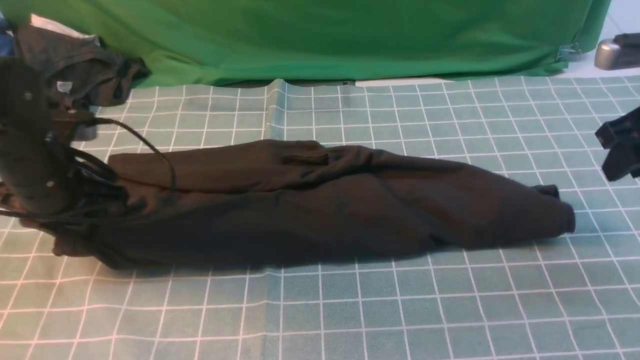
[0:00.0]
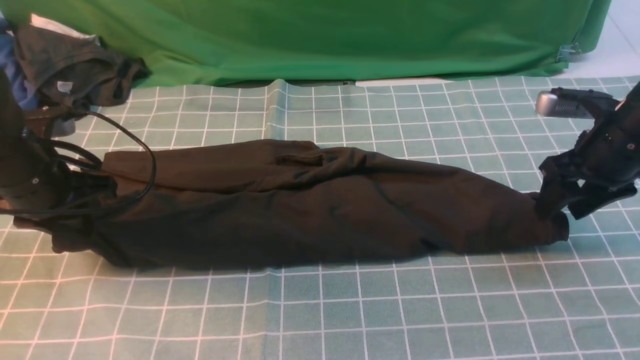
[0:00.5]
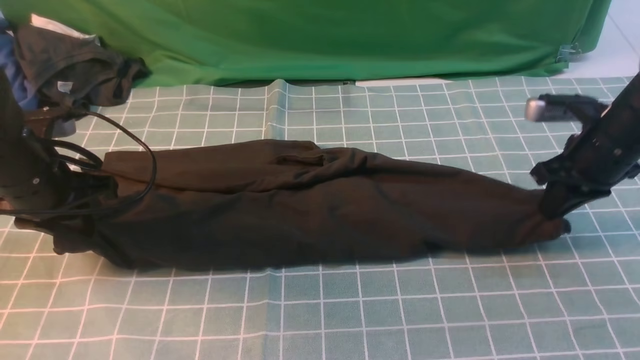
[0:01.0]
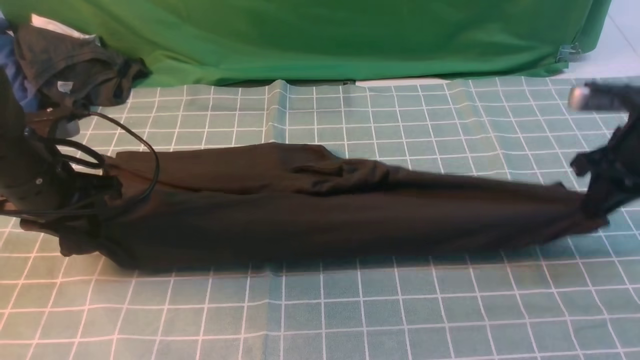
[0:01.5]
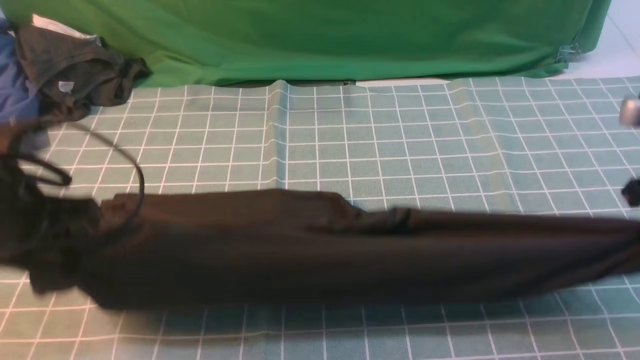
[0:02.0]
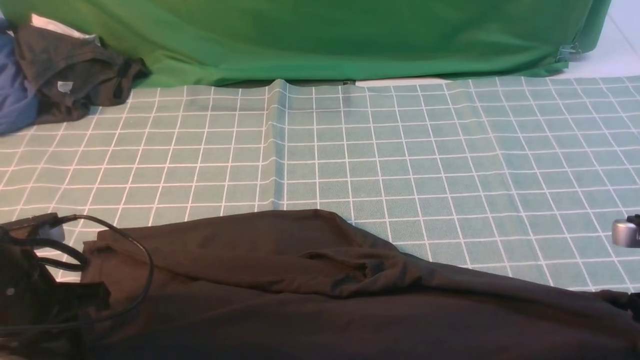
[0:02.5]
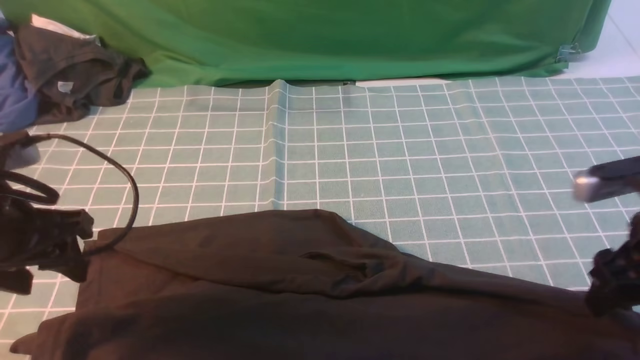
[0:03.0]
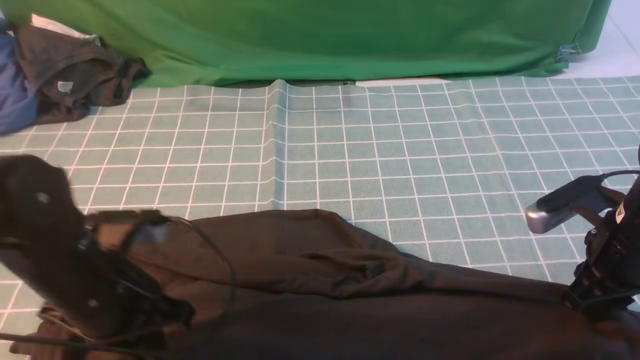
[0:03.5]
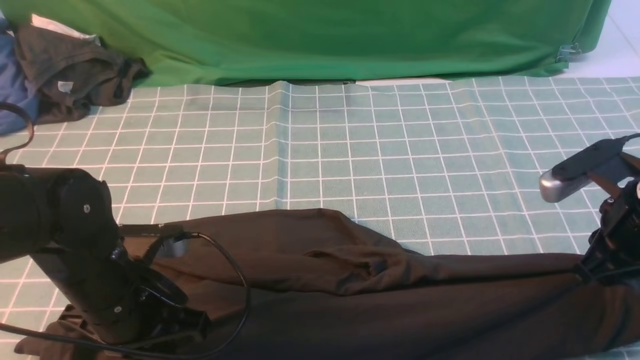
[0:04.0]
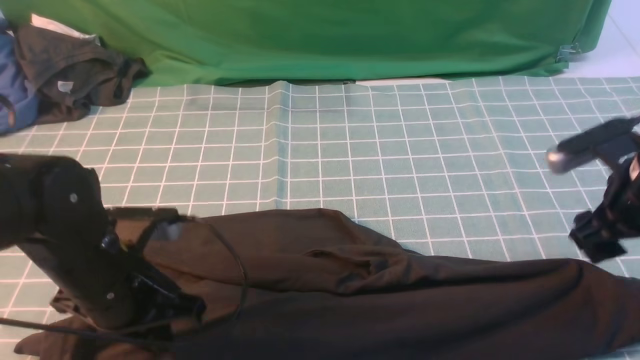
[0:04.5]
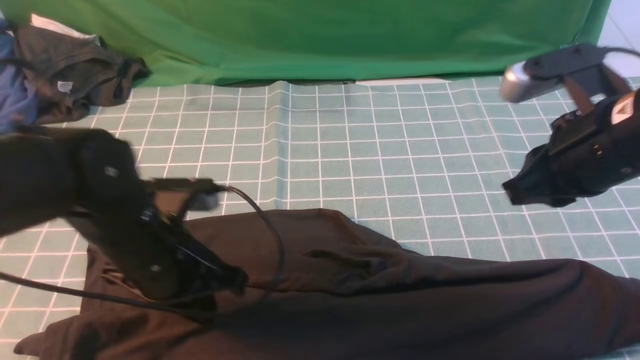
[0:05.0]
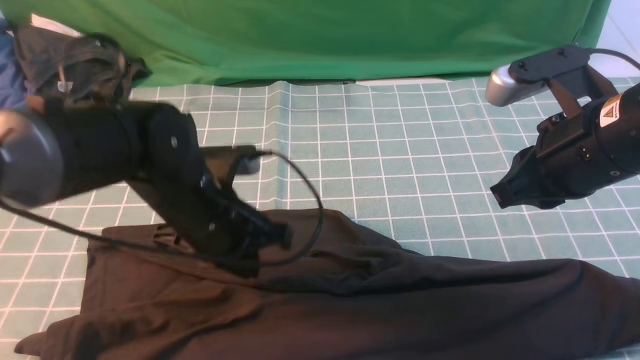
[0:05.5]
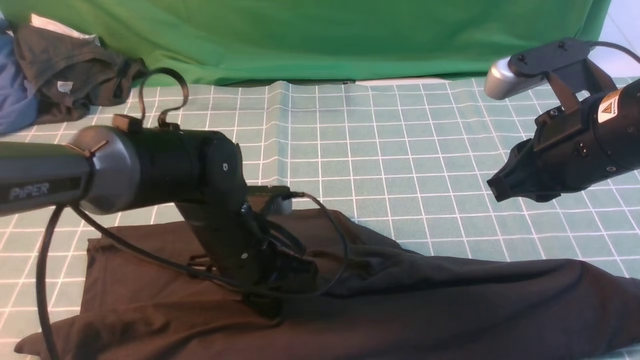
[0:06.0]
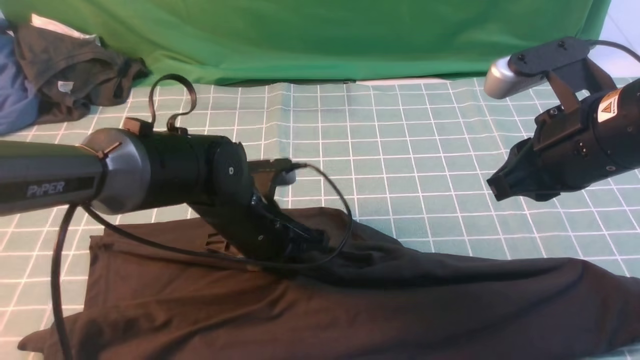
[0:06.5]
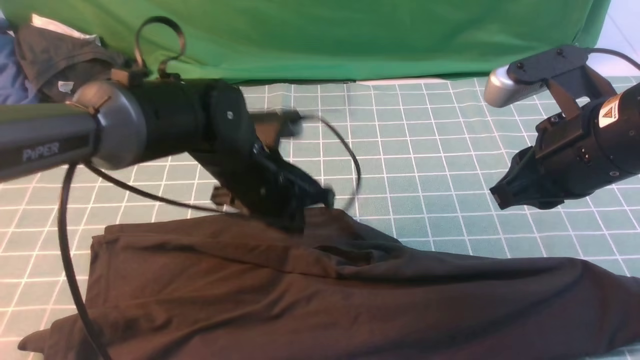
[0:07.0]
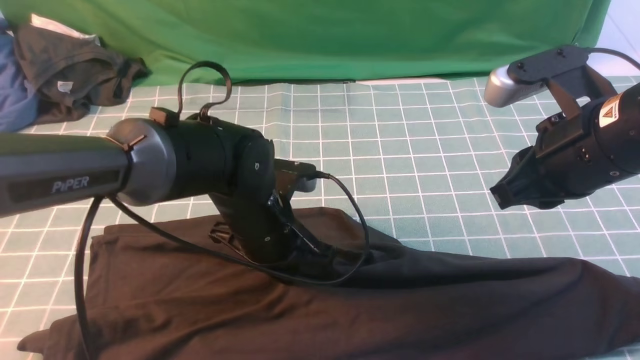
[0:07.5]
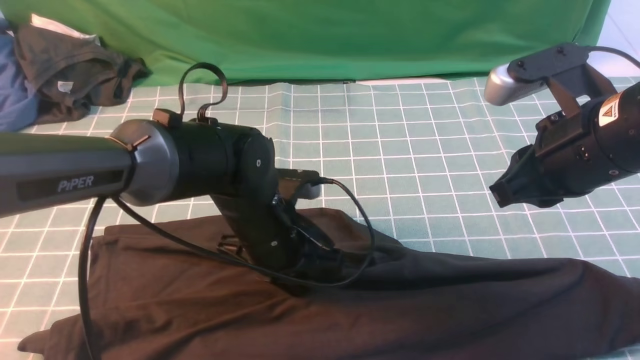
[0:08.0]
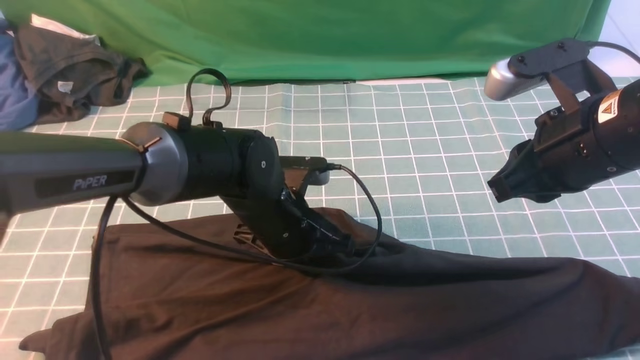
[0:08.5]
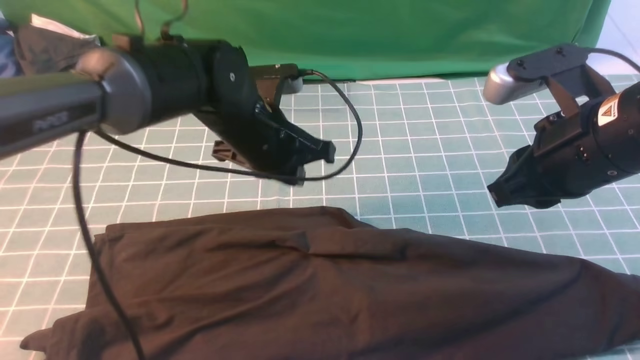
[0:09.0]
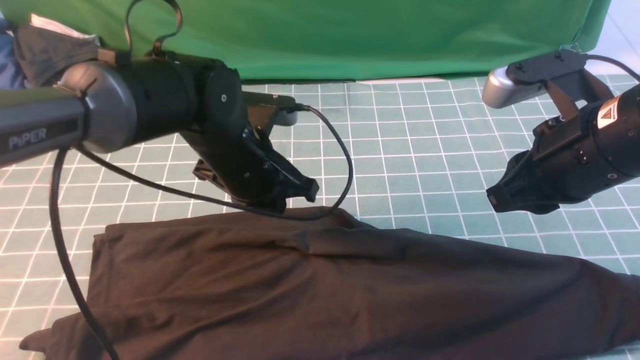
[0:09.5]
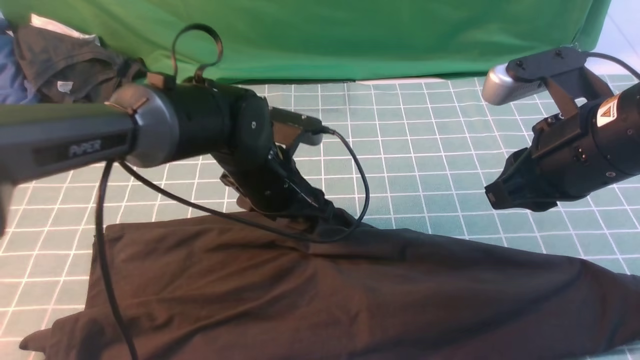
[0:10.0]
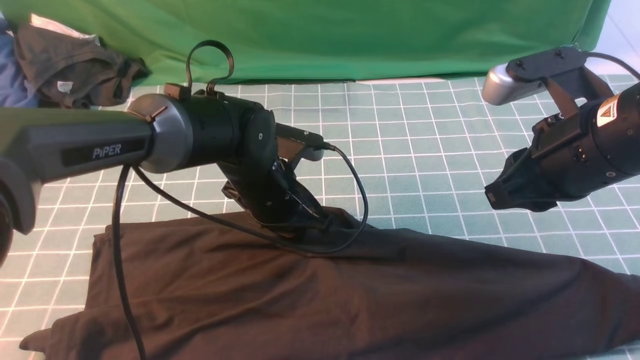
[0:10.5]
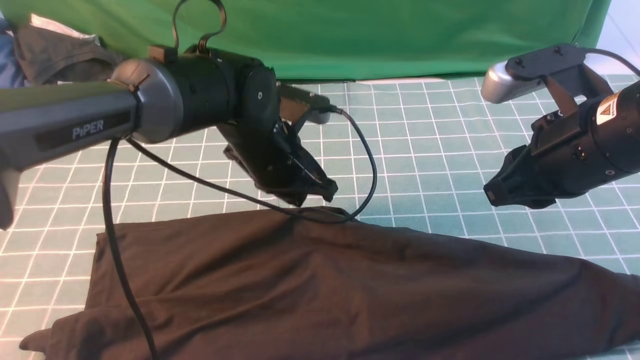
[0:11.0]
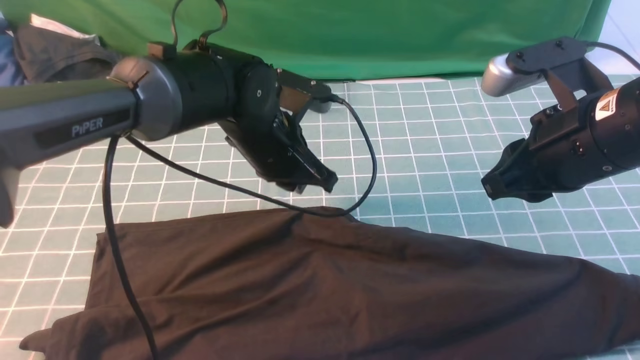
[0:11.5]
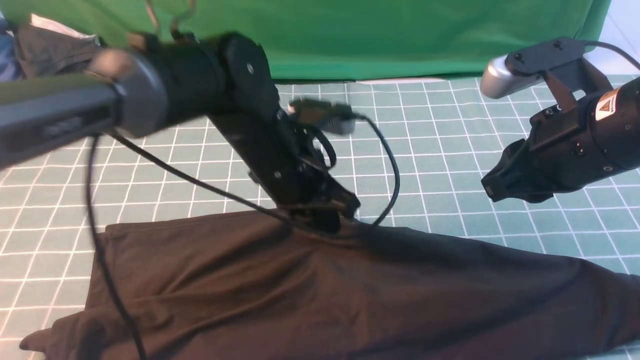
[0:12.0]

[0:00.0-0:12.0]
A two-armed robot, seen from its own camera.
0:00.0 to 0:02.0: Both grippers travel together backward, some 5 cm. The right gripper closes up.
0:02.0 to 0:04.0: The left gripper moves to the right and downward, about 10 cm, and opens, then closes again, while the right gripper is displaced to the left by approximately 5 cm, and opens, then closes again.
0:04.0 to 0:06.0: The right gripper moves upward and to the left, roughly 10 cm, and opens, then closes once more. Meanwhile the left gripper is displaced to the right and forward by roughly 10 cm.
0:08.0 to 0:10.0: The left gripper moves forward, about 5 cm, and opens up.
0:10.0 to 0:12.0: The left gripper closes its fingers.

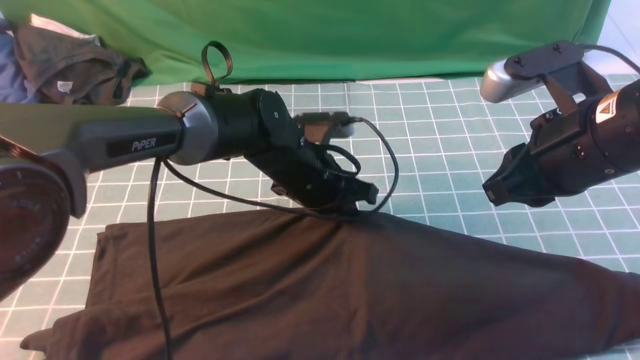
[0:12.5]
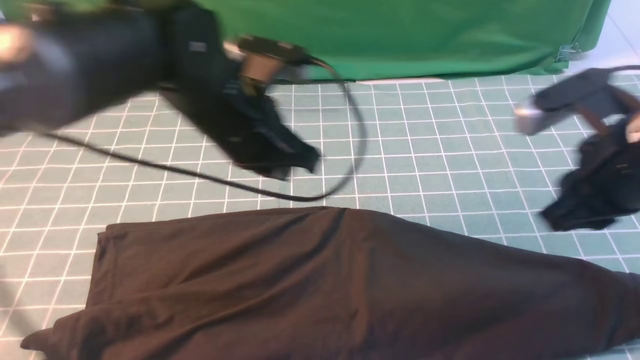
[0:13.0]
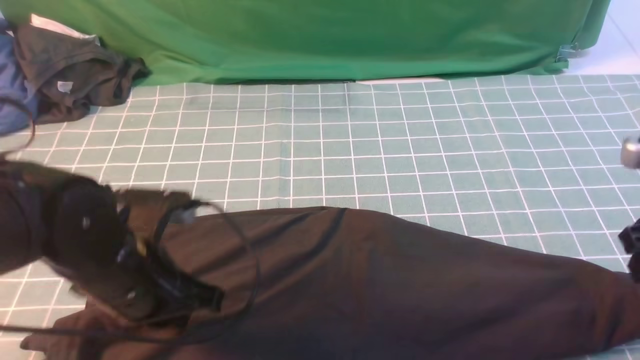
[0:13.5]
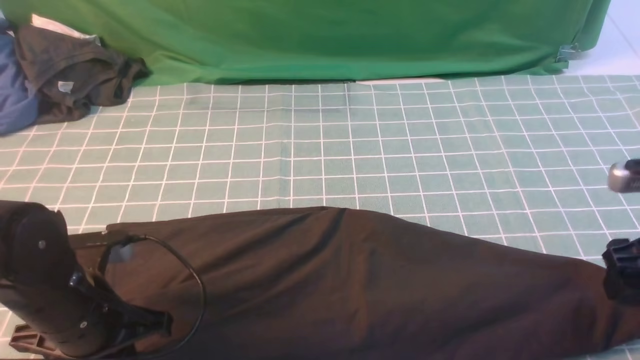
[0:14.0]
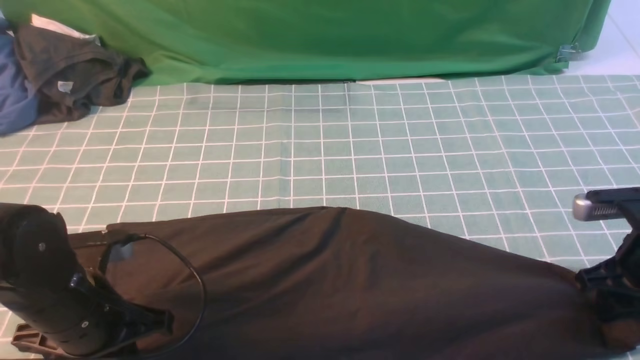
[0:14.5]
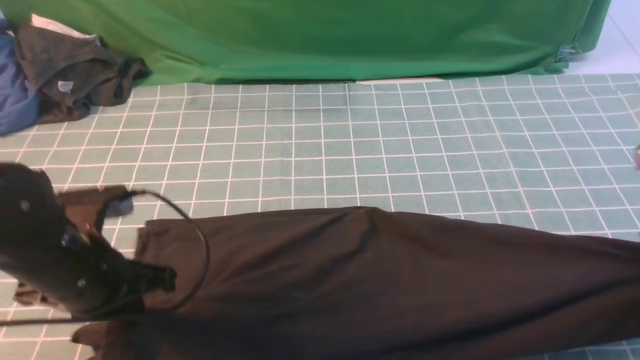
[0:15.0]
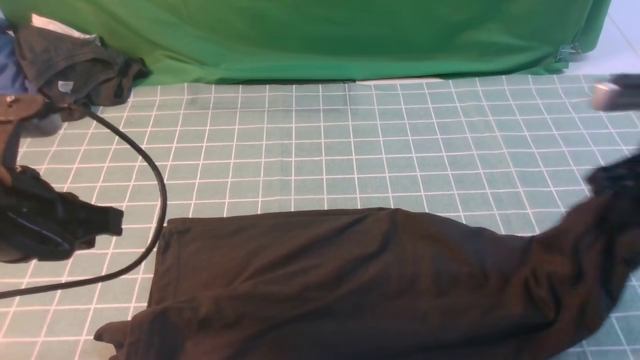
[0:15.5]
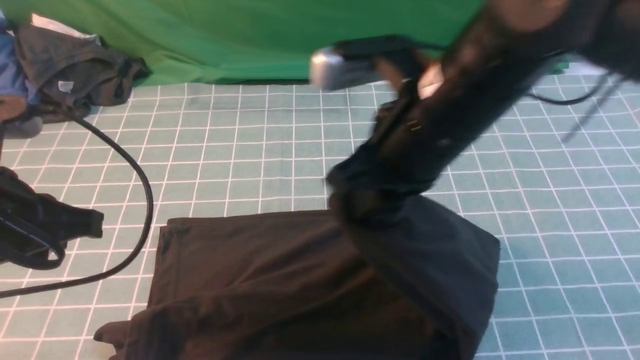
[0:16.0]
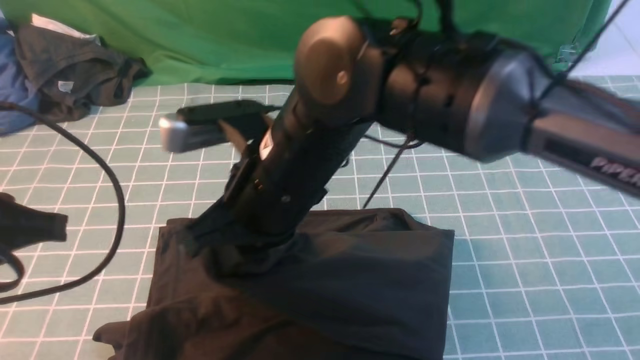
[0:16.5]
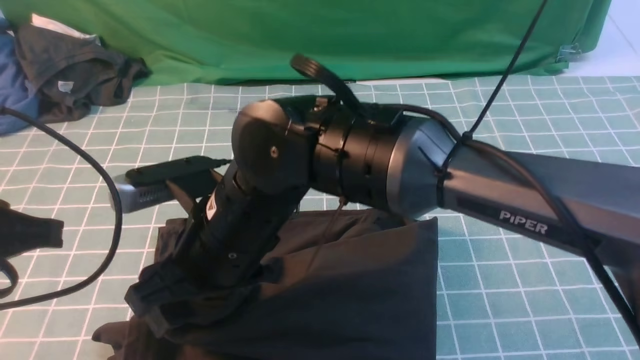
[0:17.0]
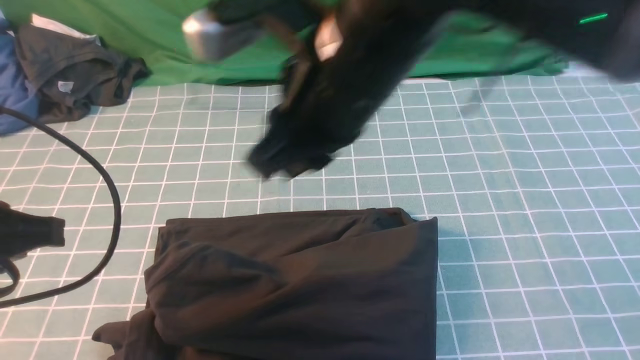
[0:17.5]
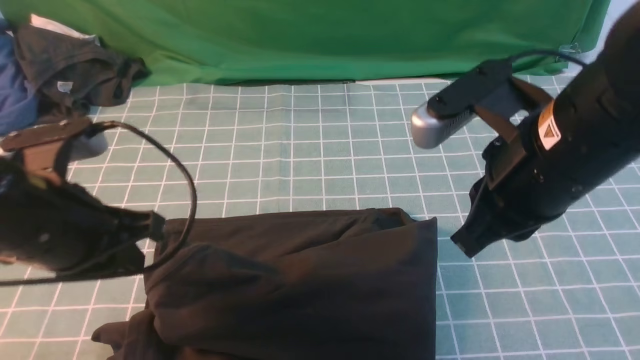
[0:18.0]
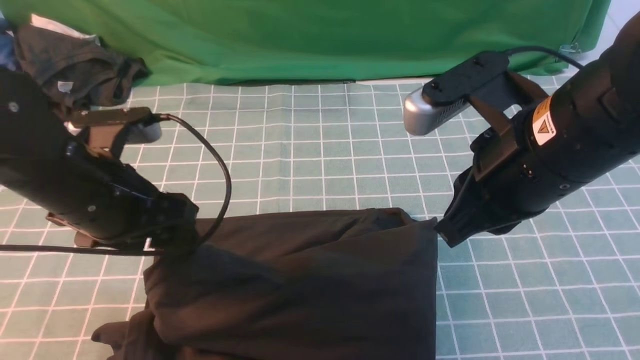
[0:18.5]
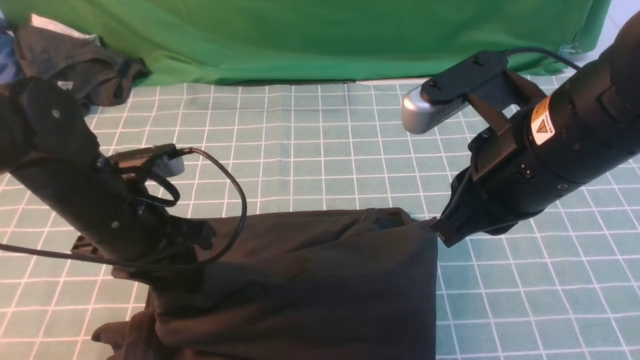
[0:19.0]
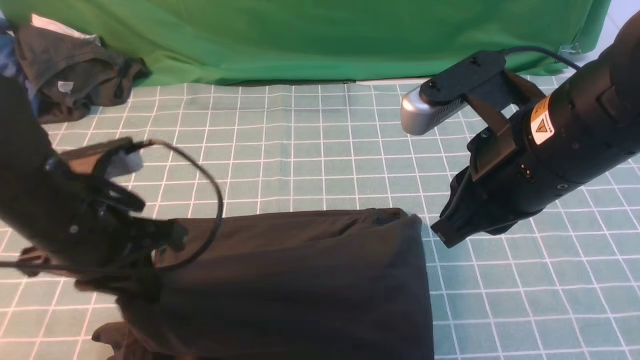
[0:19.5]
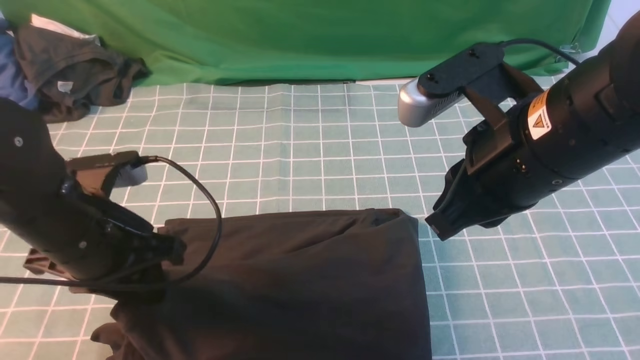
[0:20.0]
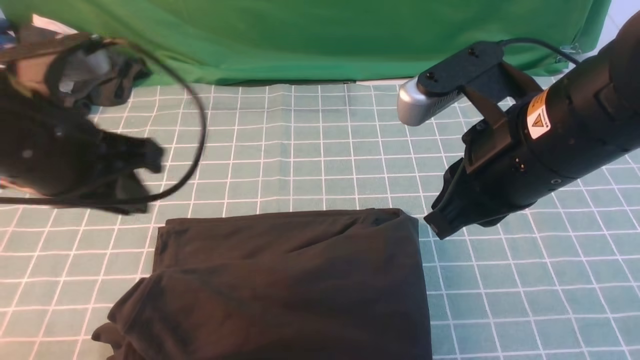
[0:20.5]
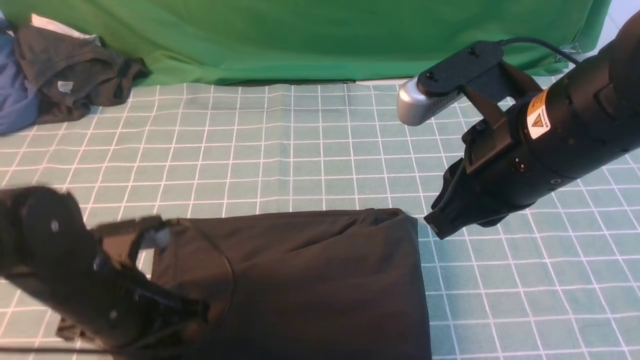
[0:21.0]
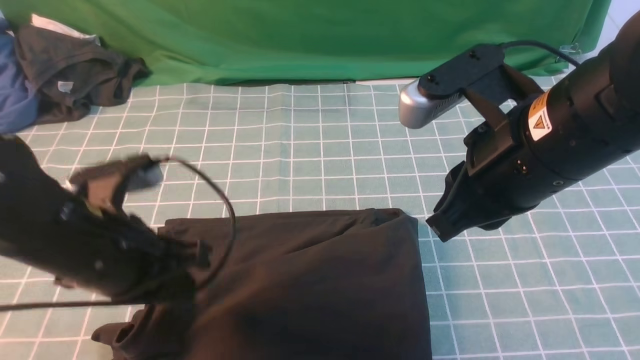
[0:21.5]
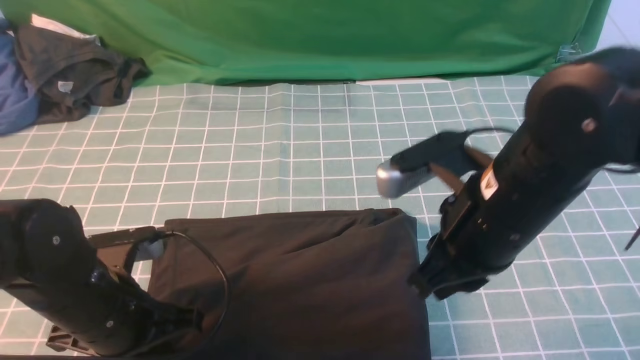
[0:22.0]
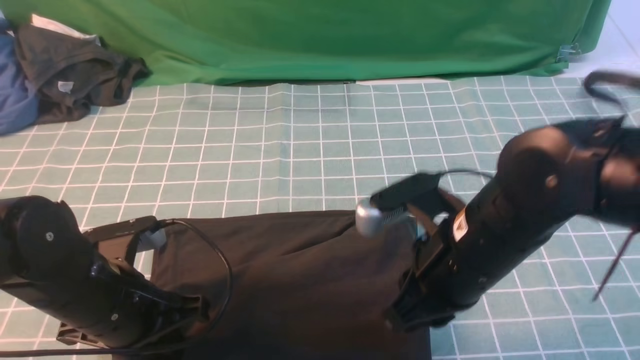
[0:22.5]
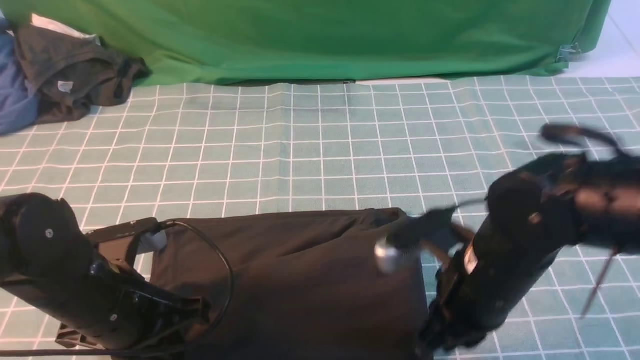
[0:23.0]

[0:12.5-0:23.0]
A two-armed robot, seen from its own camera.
Step, 0:13.5 to 0:15.0: use the right arm to clamp the right edge of the fabric.
Step, 0:15.5 to 0:17.0: use the right arm to drag the right edge of the fabric to the left and folds it over the left edge.
0:12.5 to 0:14.5: The left gripper goes about 25 cm to the left and backward; the right gripper moves downward and to the right, roughly 20 cm, and opens.
0:14.5 to 0:16.5: The right gripper goes some 35 cm to the left, and closes its fingers; the left gripper heads upward, covering approximately 15 cm.
0:16.5 to 0:19.0: The right gripper moves to the right, approximately 20 cm, and opens, then closes again. The left gripper travels forward, downward and to the right by some 15 cm, and opens.
0:19.0 to 0:21.0: The left gripper goes upward and returns, roughly 10 cm each way, and closes up.
0:21.0 to 0:23.0: The right gripper heads downward, covering about 10 cm.
